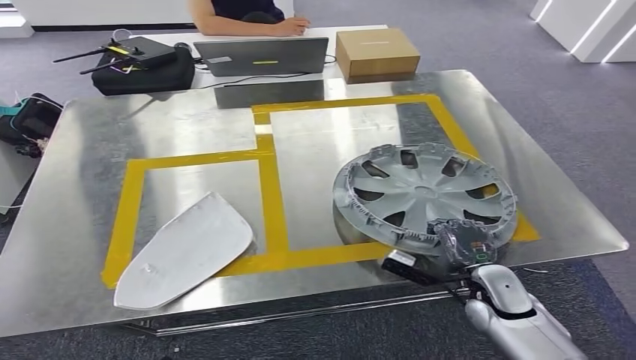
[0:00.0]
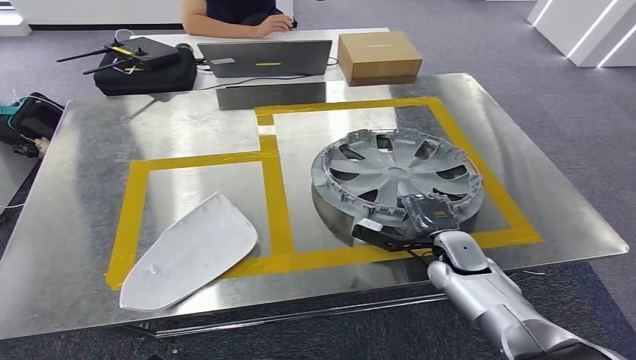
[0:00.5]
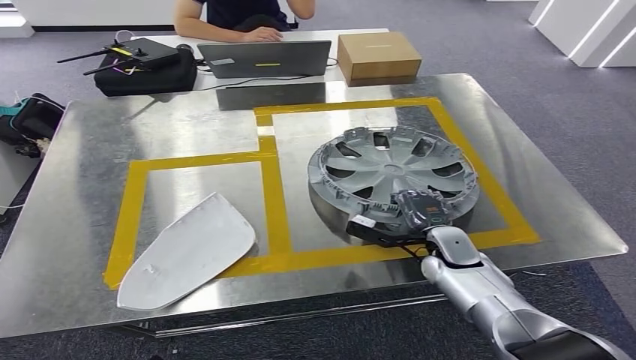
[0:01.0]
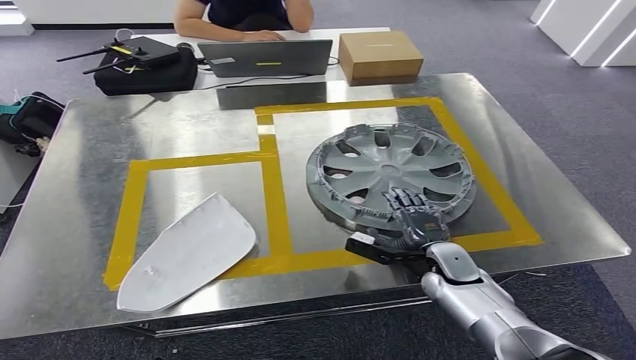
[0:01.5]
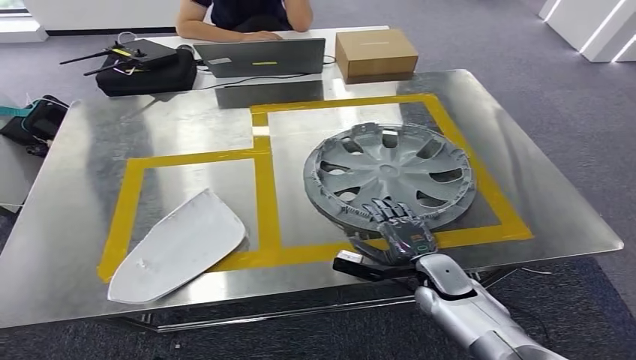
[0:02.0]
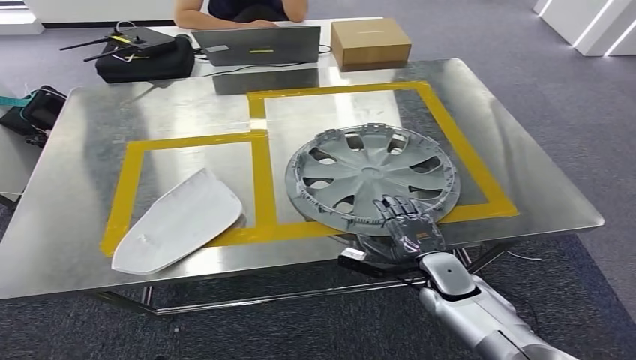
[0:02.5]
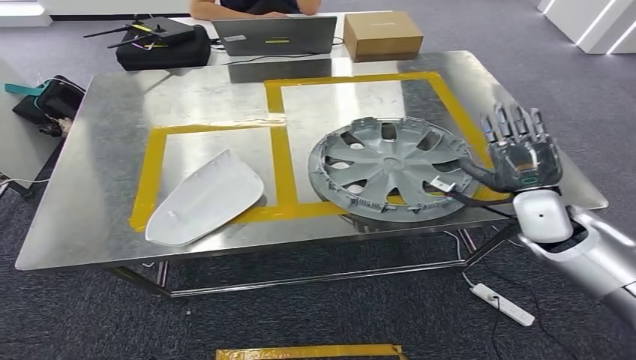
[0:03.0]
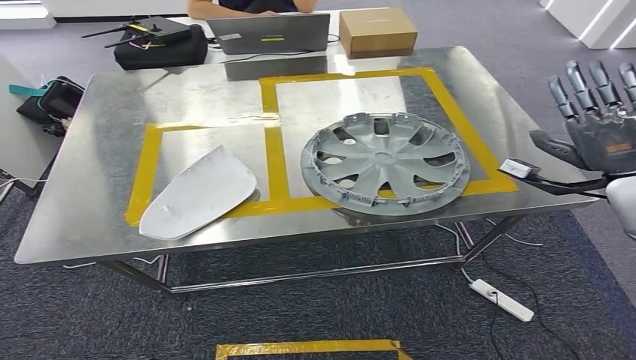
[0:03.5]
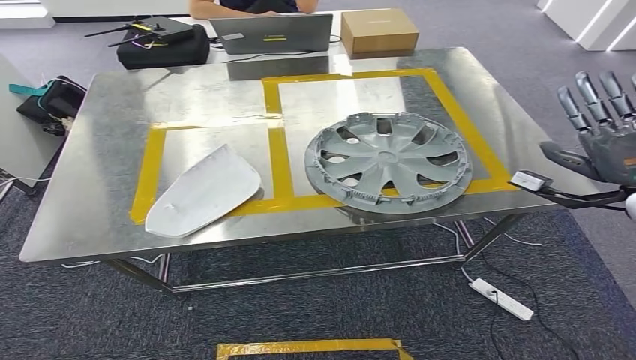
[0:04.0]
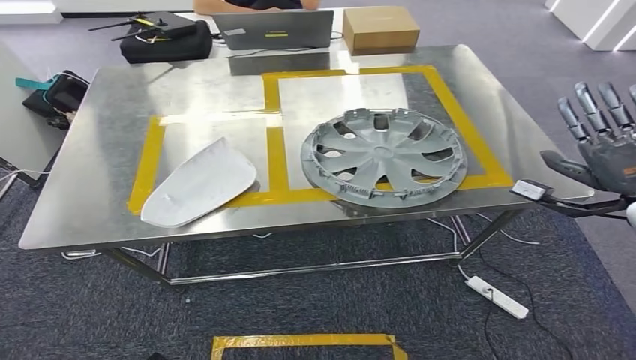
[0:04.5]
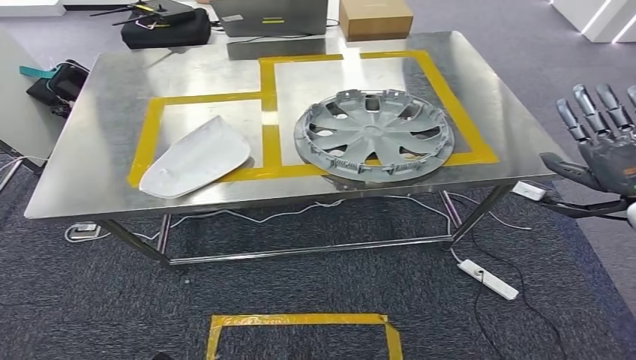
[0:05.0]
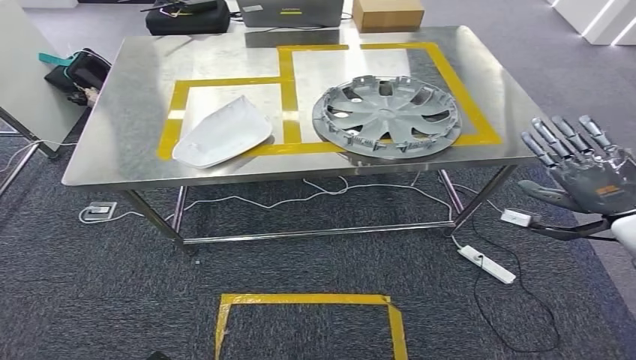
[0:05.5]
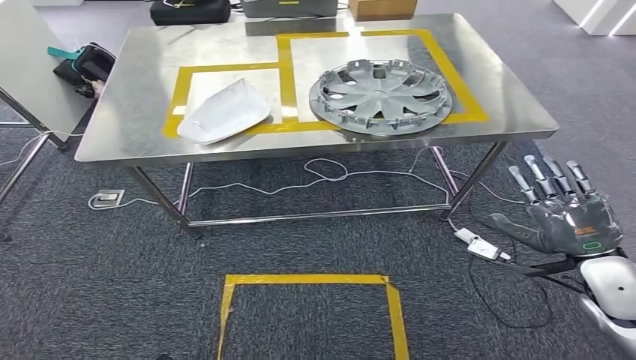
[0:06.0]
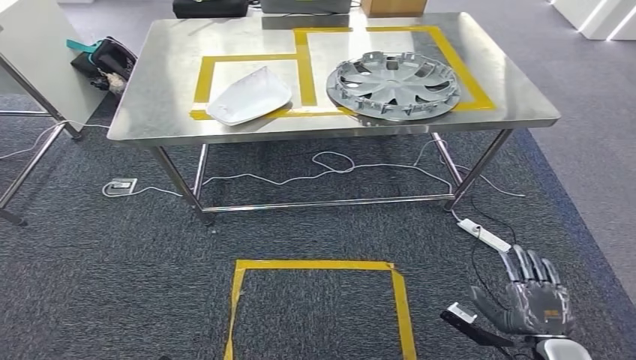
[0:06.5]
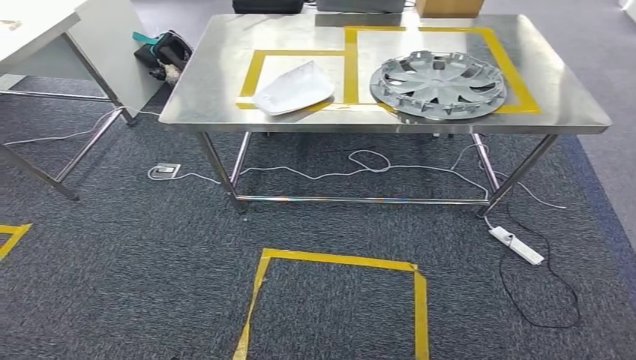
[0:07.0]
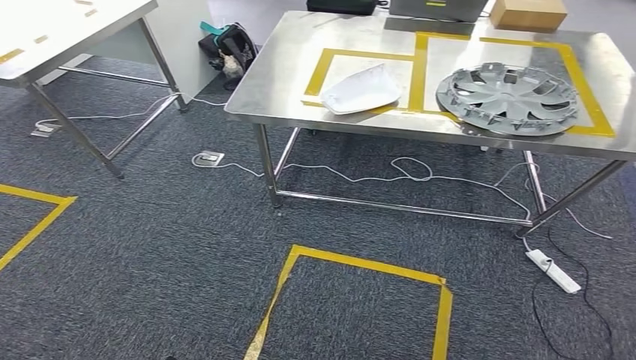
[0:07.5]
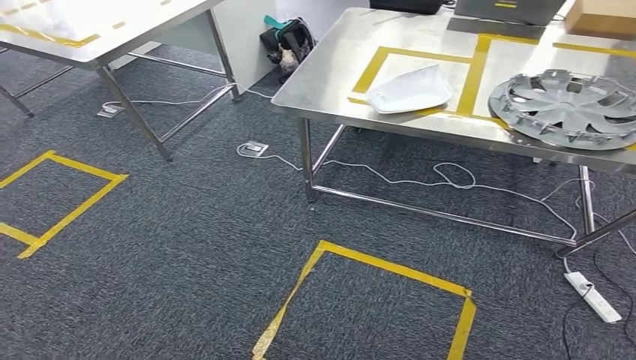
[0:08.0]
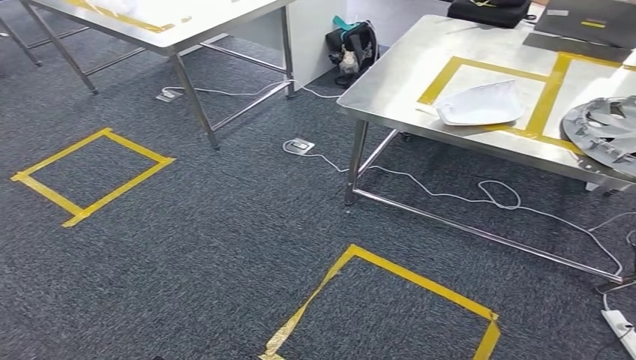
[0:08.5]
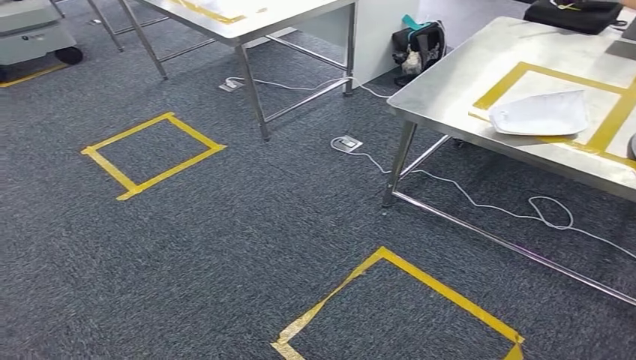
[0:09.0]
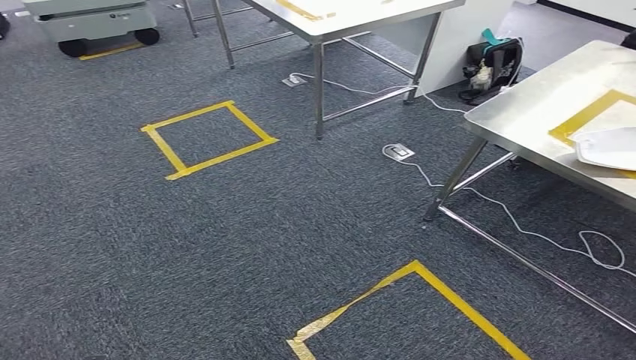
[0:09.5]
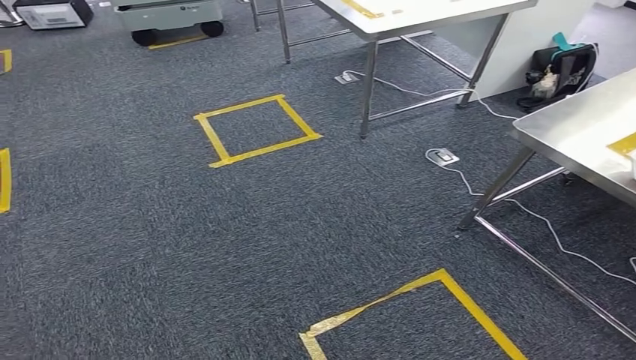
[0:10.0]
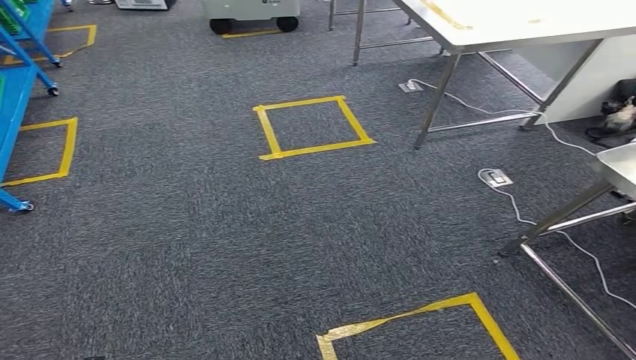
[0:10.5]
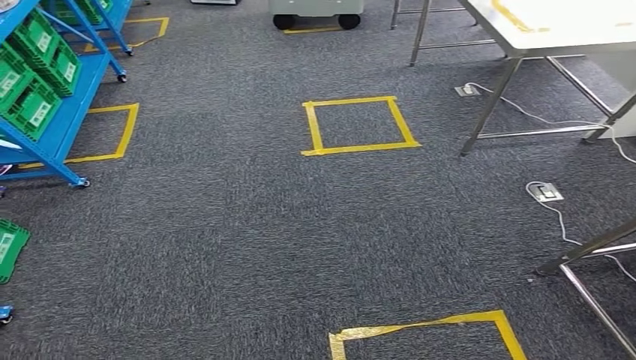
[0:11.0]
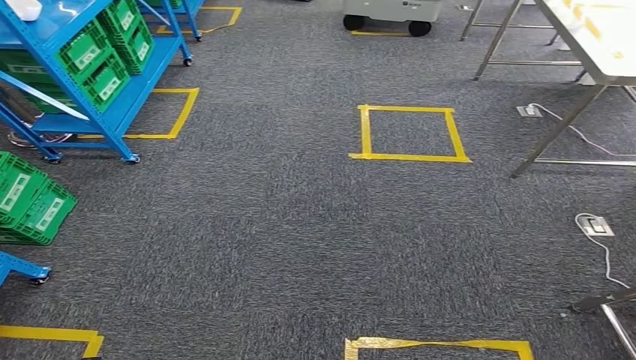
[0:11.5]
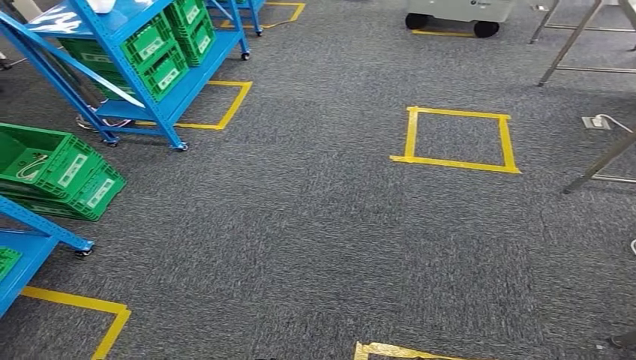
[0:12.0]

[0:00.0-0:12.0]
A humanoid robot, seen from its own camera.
Step, 0:00.0 to 0:03.5: Insert the small parts into the corresponding holes on the workbench.

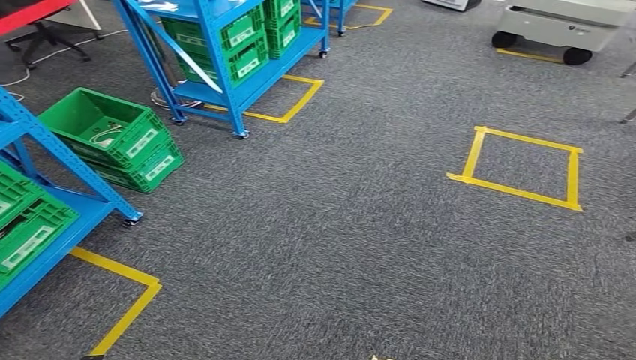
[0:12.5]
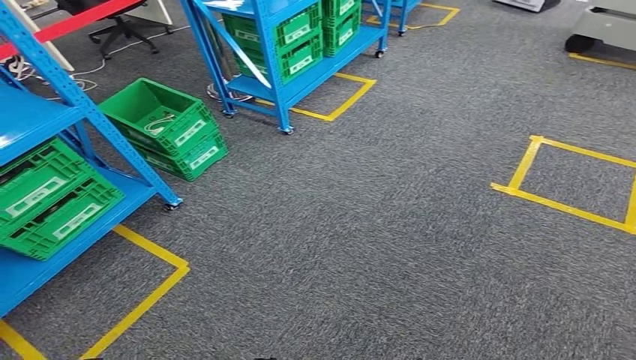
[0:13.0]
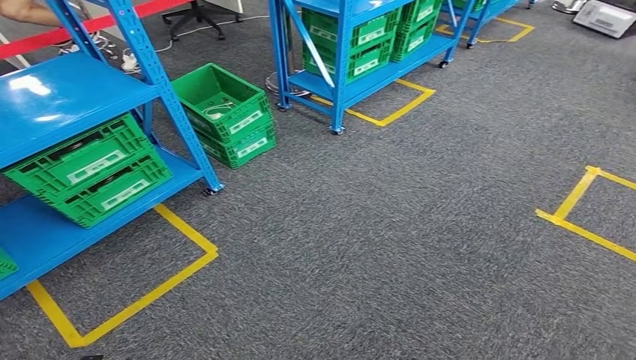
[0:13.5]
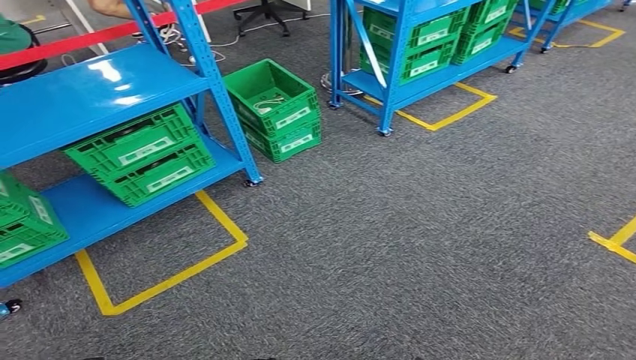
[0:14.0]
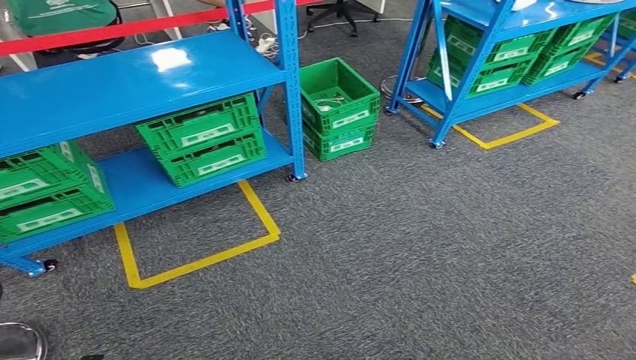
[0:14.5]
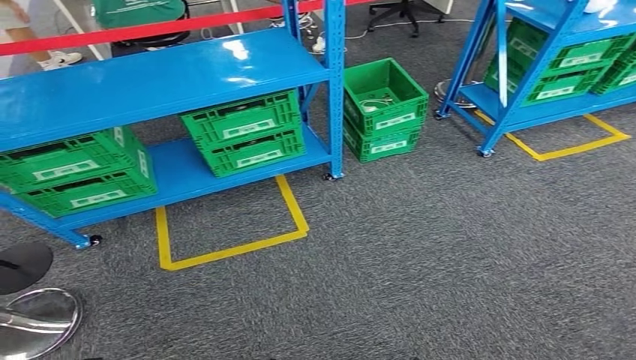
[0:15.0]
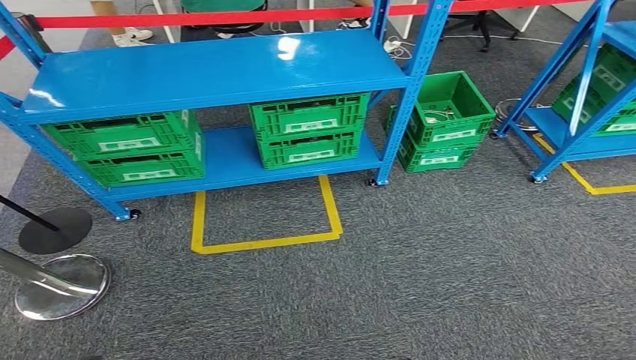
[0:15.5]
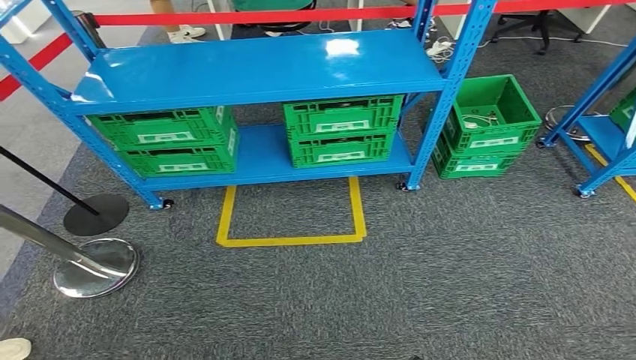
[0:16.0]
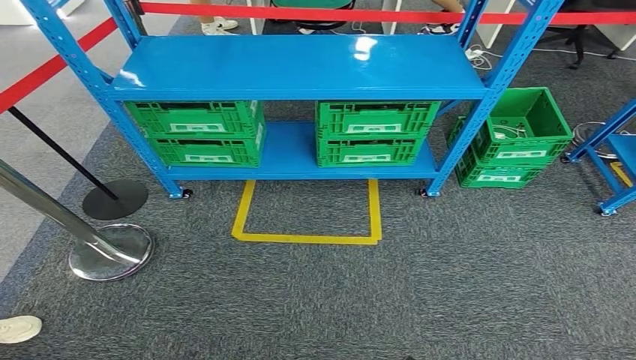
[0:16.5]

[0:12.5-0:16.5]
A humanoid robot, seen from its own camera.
Step, 0:12.5 to 0:16.5: Move to the initial position of the workbench.
